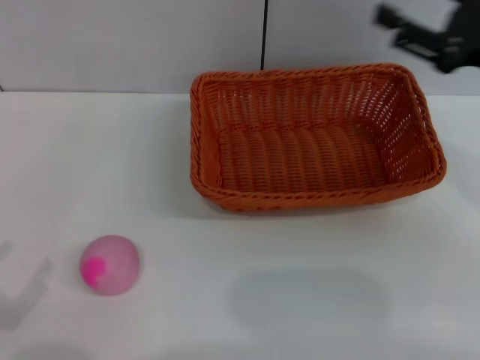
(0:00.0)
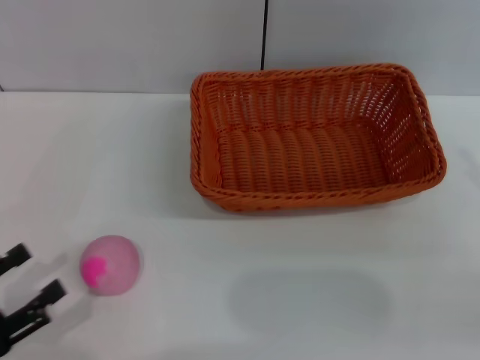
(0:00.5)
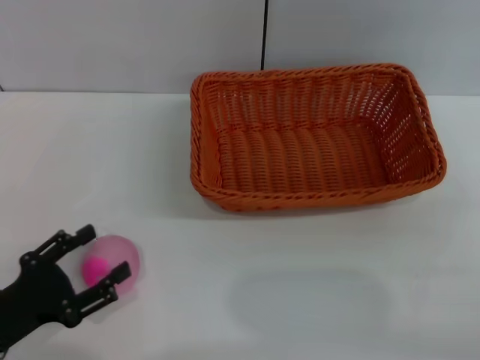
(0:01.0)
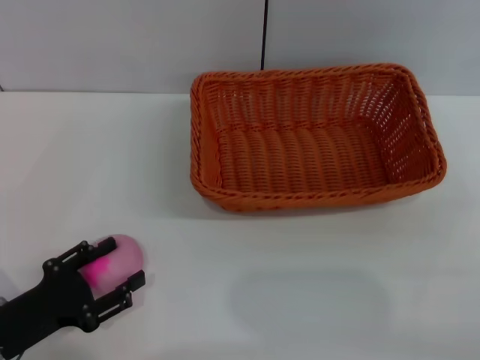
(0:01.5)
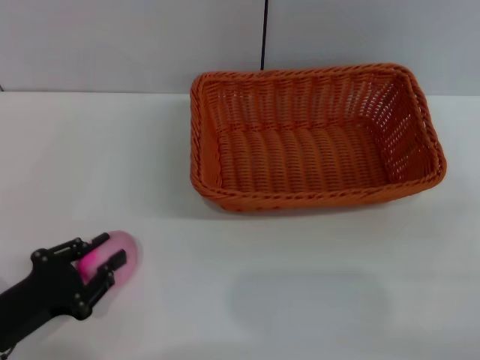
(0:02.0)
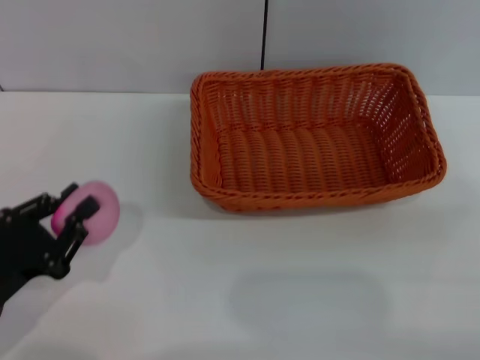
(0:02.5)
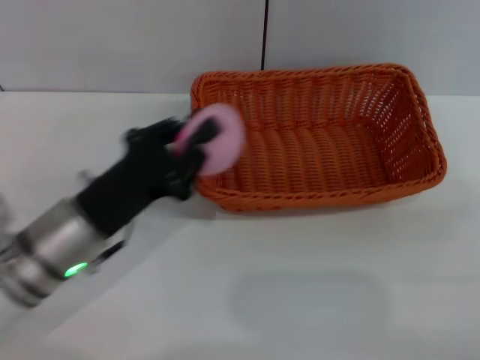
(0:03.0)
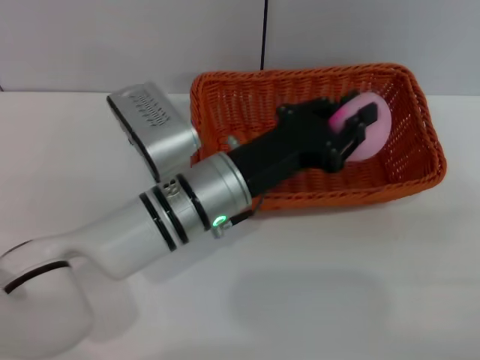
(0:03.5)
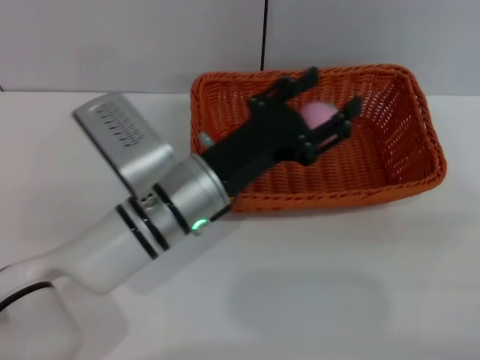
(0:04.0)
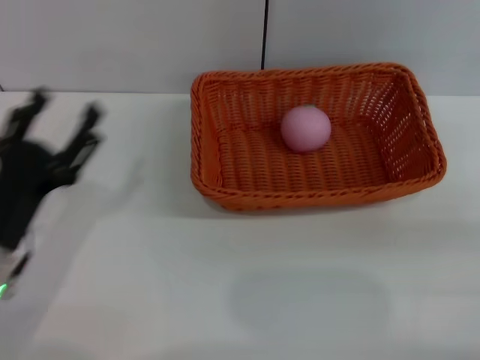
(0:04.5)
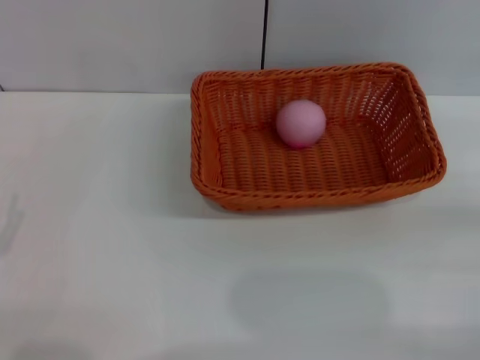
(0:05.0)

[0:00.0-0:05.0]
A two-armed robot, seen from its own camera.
Step, 0:00.0 to 0:02.5: Pick up the peach with the left gripper.
Step, 0:03.0 to 0:03.5: Place the peach into the basket with the left gripper.
0:00.0 to 0:02.5: The left gripper travels forward and to the right by approximately 10 cm, and closes up. Meanwhile the right gripper travels backward, to the right and downward by about 20 cm.
0:02.5 to 0:05.0: The left gripper goes to the right and returns, about 25 cm each way, and opens up.

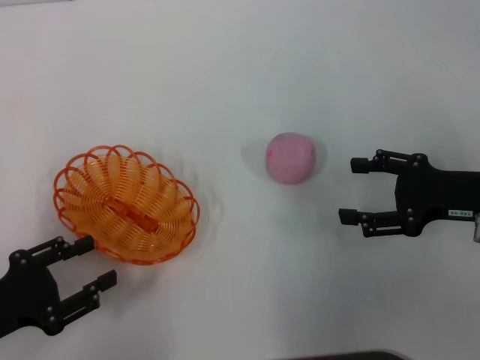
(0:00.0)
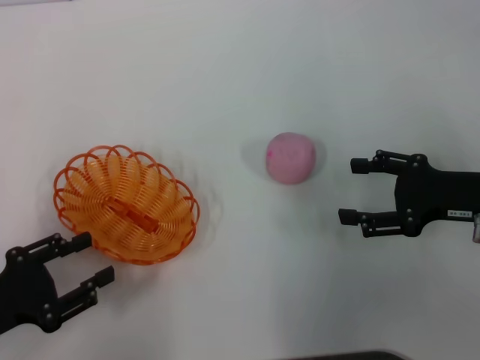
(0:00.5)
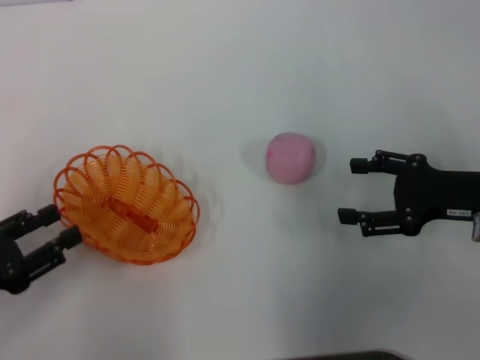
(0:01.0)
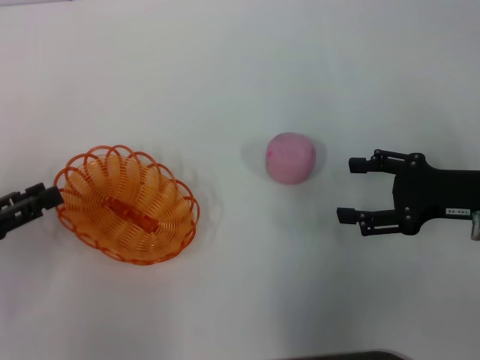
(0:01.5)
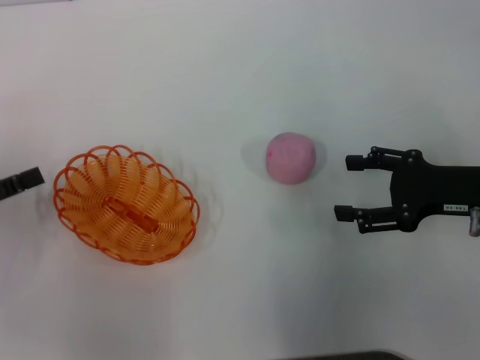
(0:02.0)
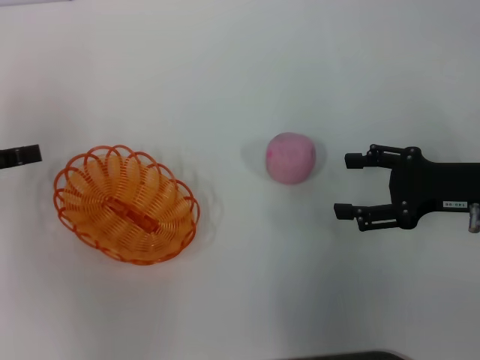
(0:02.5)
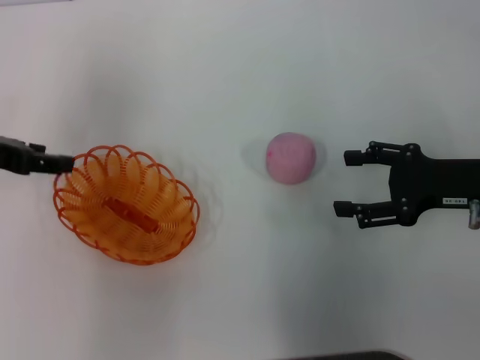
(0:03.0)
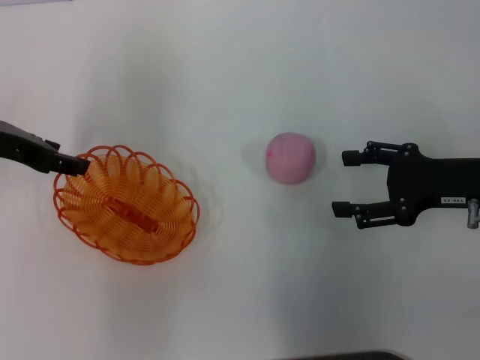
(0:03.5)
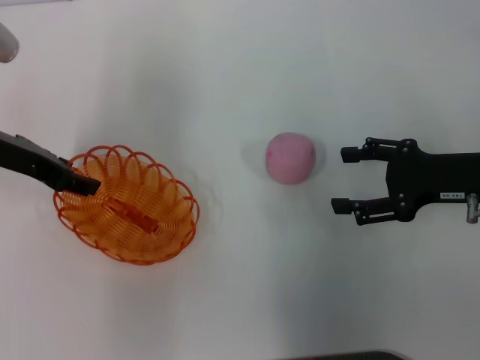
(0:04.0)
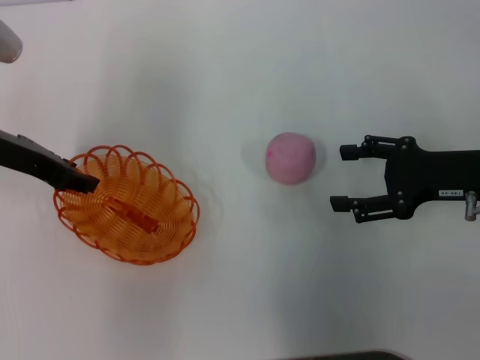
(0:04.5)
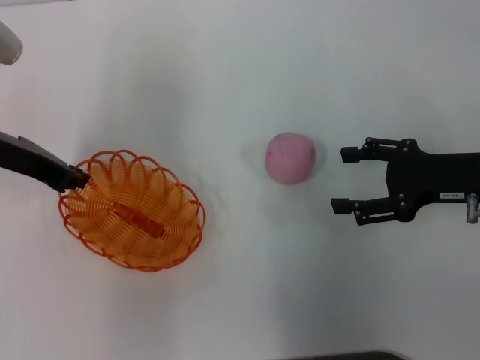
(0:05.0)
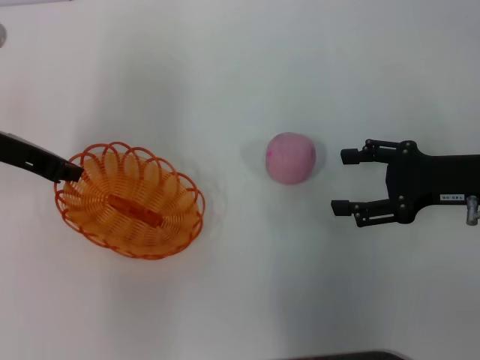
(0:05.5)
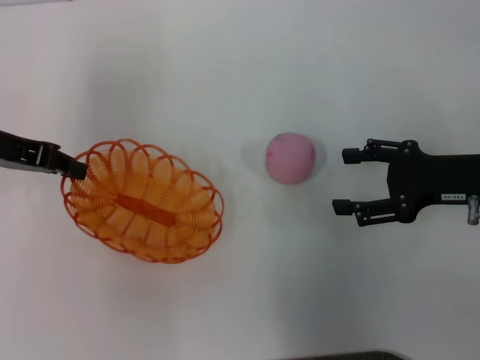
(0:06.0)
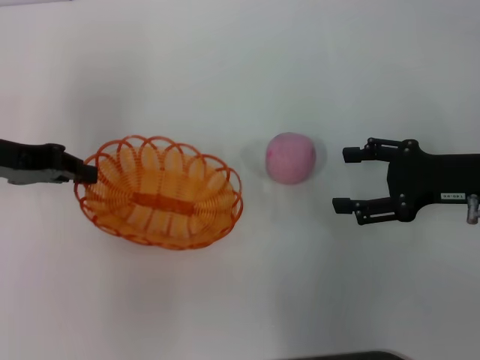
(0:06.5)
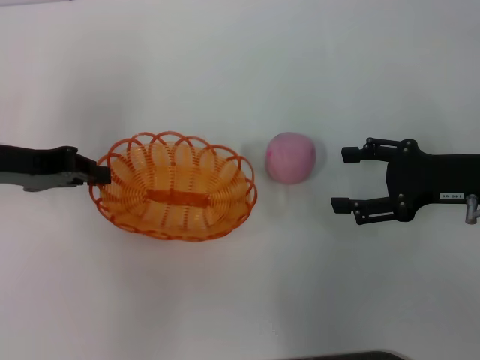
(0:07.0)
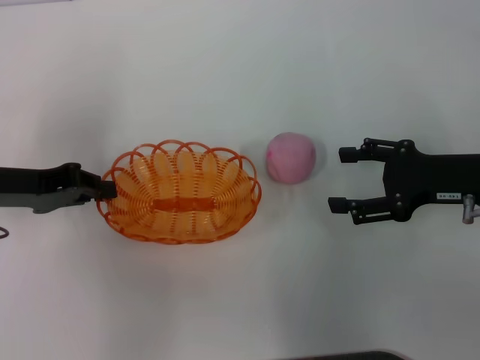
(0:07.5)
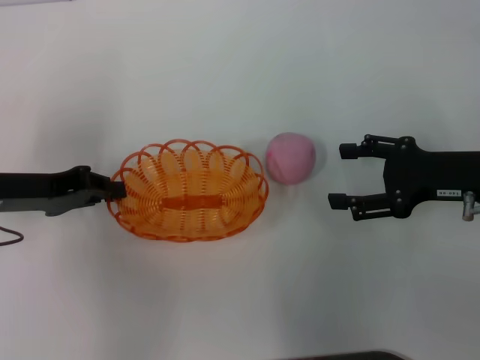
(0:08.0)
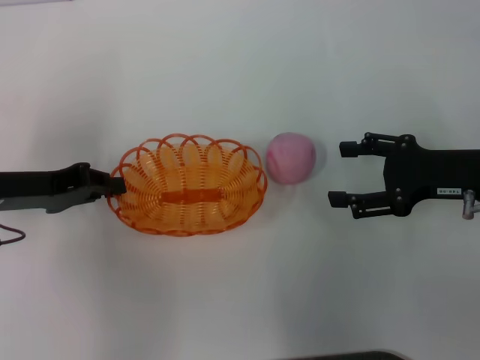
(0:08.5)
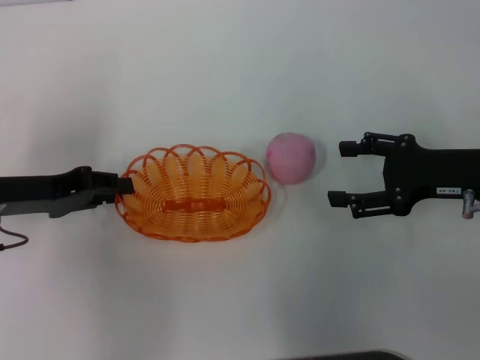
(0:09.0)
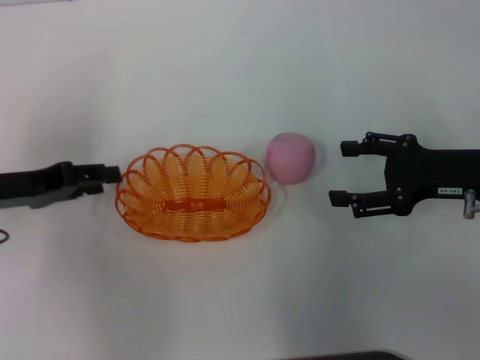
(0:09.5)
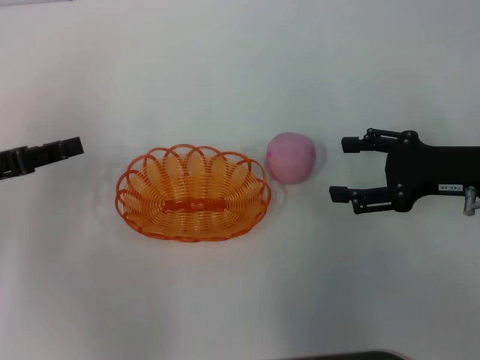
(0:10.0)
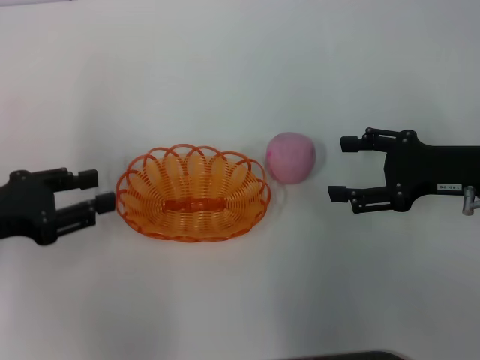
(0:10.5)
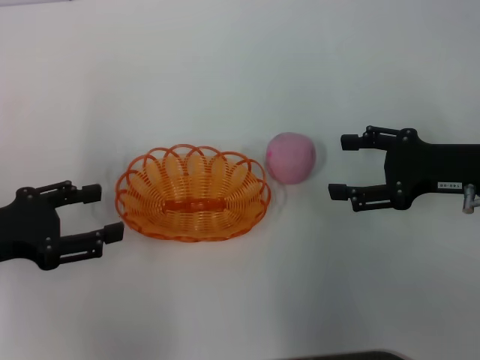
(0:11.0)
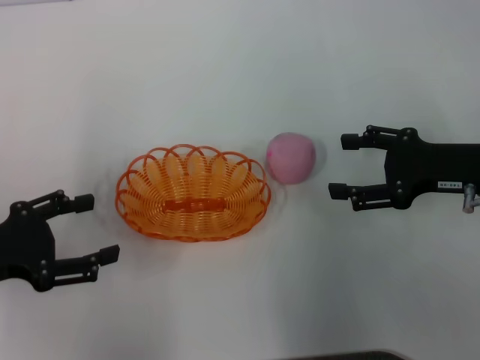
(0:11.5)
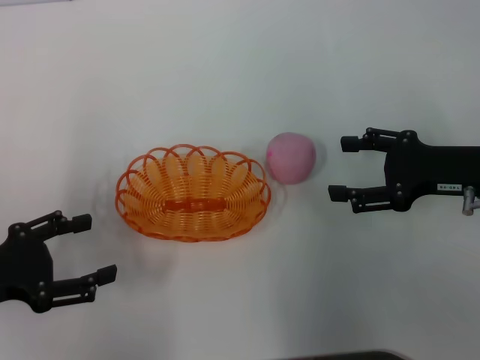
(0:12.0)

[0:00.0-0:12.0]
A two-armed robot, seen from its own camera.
Step, 0:00.0 to 0:05.5: Pick up the basket with the left gripper.
Step, 0:06.0 to 0:10.5: Place the basket in the center of view with the left gripper.
0:00.0 to 0:02.0: The left gripper heads forward and to the left, covering about 10 cm.
0:02.0 to 0:04.0: The left gripper is displaced forward, to the right and upward by about 15 cm.
0:04.0 to 0:06.0: The left gripper closes up.
0:06.0 to 0:08.0: The left gripper moves downward and backward, approximately 10 cm.
0:08.0 to 0:10.0: The left gripper shifts by roughly 5 cm, and opens up.
0:10.0 to 0:12.0: The left gripper is displaced backward by about 5 cm, and opens its fingers.

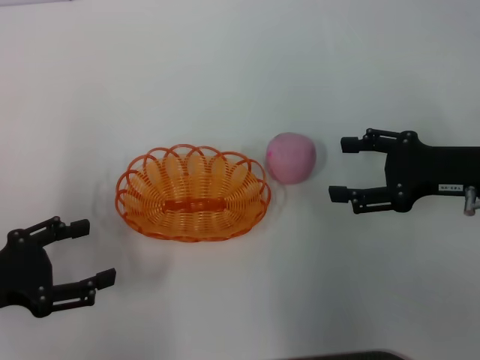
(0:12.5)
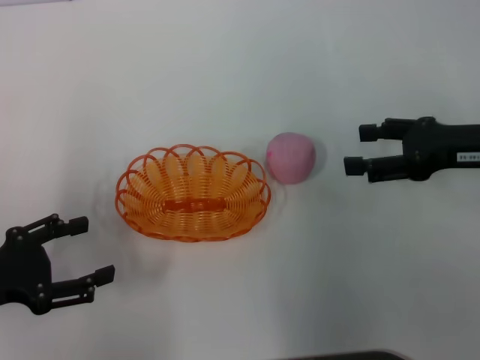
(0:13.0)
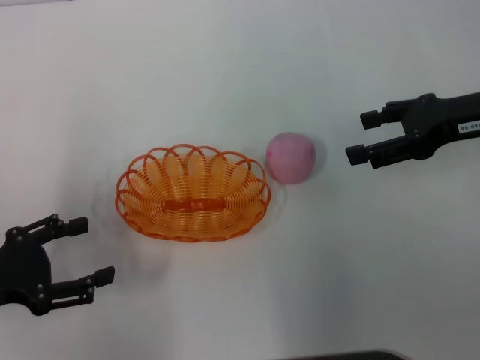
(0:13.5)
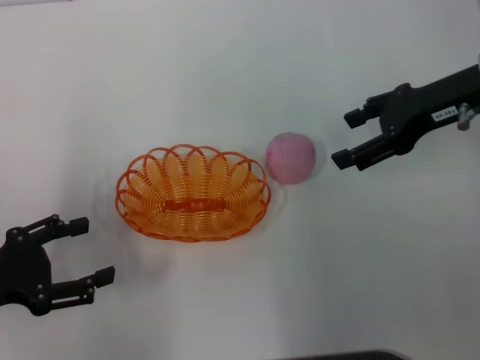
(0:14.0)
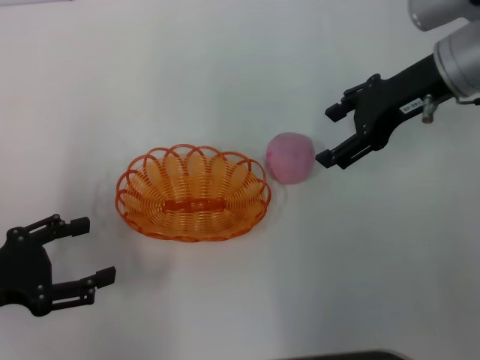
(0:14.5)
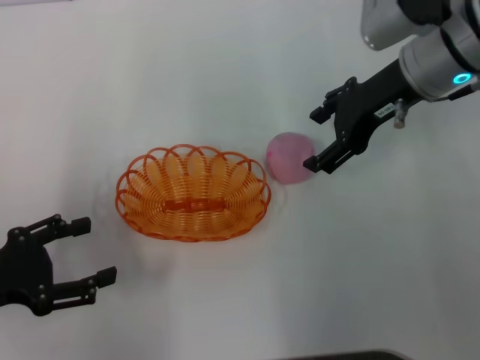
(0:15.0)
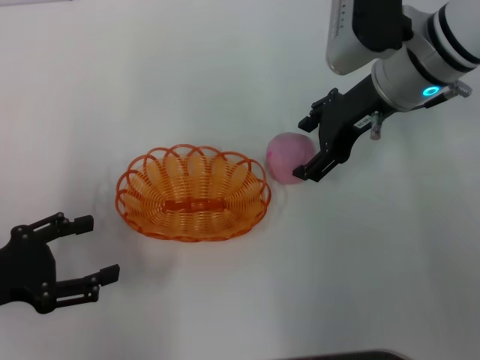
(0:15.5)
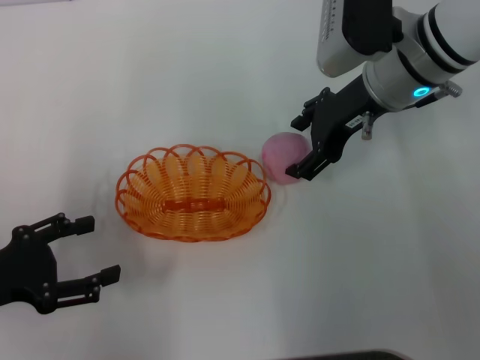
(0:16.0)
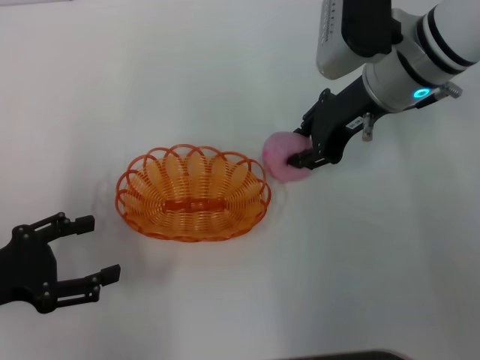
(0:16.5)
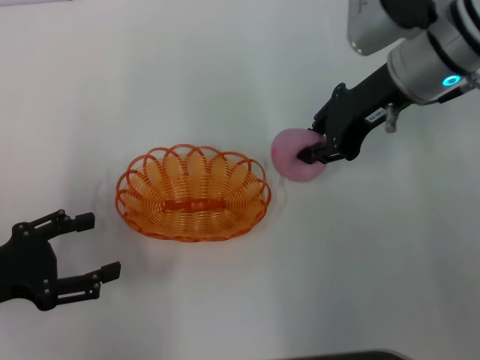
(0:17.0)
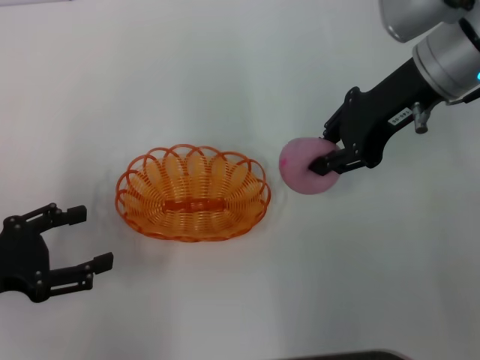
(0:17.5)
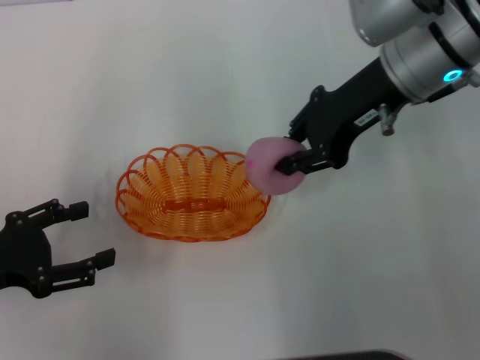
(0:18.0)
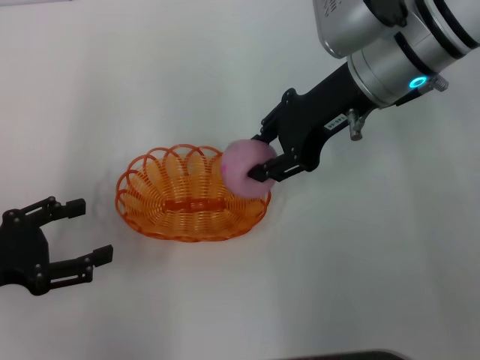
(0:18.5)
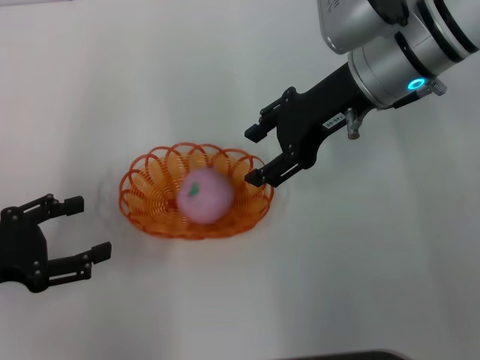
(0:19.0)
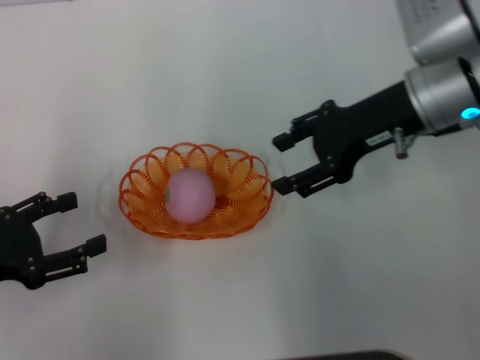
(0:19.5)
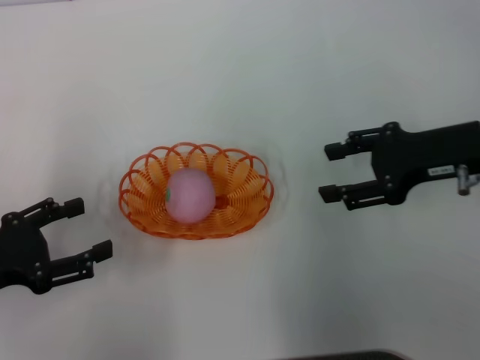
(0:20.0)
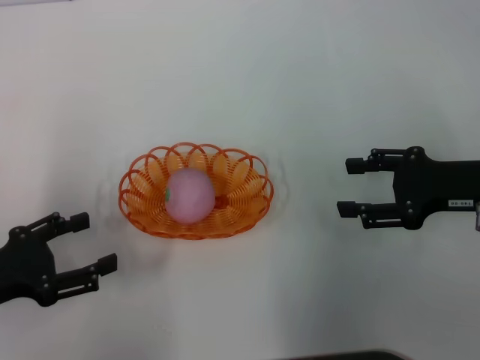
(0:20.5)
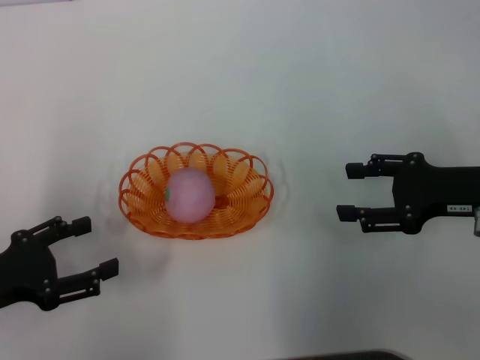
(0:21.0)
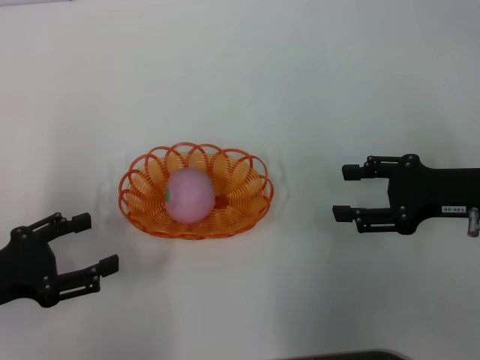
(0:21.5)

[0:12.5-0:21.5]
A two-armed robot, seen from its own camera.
Step, 0:12.5 to 0:17.5: Pick up the peach with the right gripper.
Step, 0:18.0 to 0:19.5: Place the peach into the basket with the right gripper.
0:12.5 to 0:14.5: The right gripper heads forward, upward and to the left, covering roughly 15 cm.
0:14.5 to 0:17.0: The right gripper closes up.
0:17.0 to 0:19.5: The right gripper opens.
0:19.5 to 0:21.5: The right gripper heads to the right, backward and downward, covering some 15 cm.
